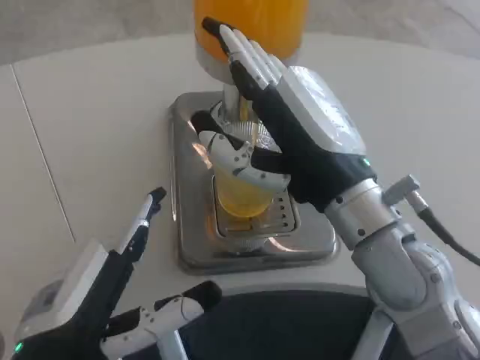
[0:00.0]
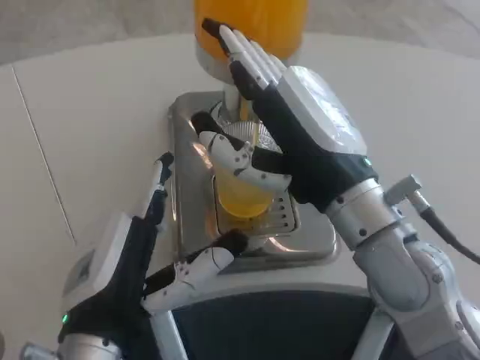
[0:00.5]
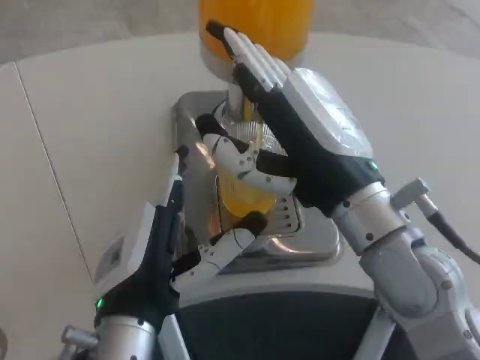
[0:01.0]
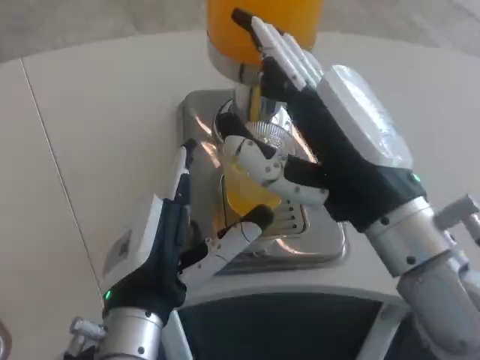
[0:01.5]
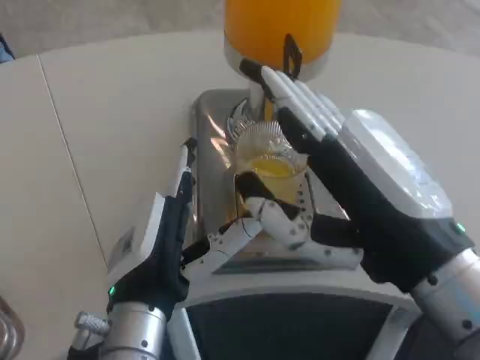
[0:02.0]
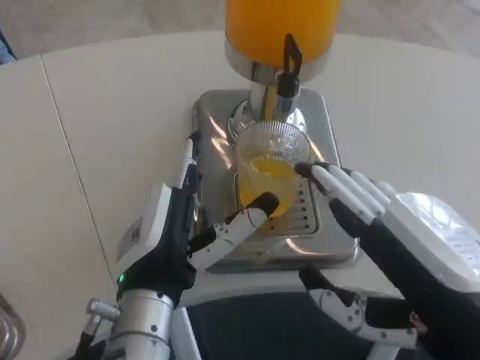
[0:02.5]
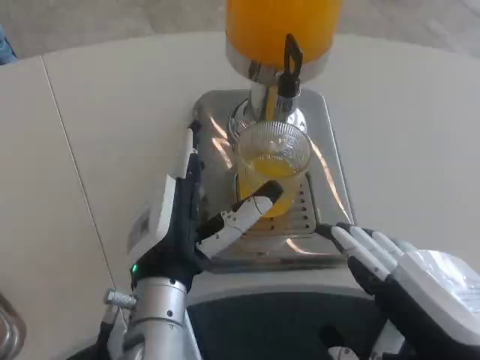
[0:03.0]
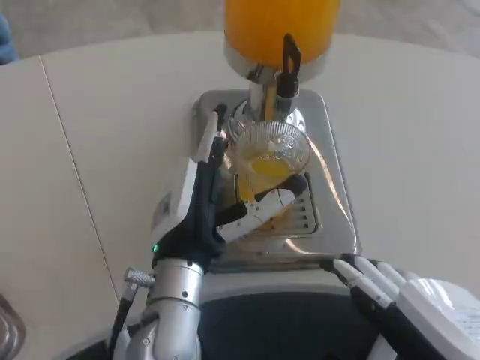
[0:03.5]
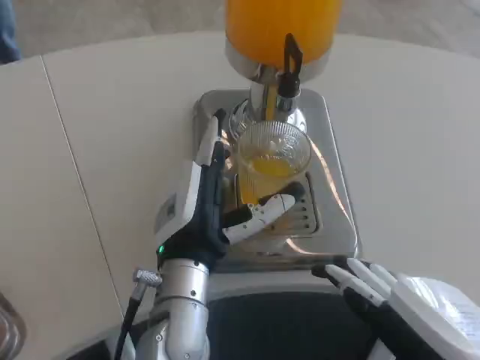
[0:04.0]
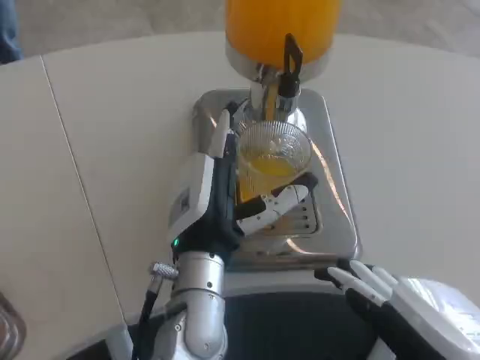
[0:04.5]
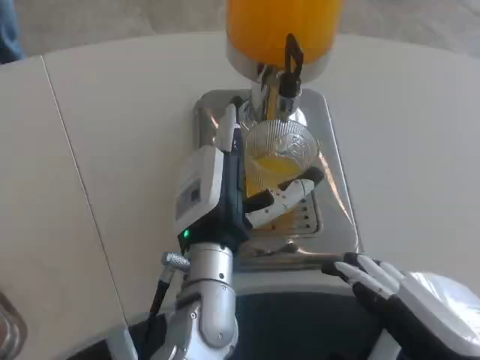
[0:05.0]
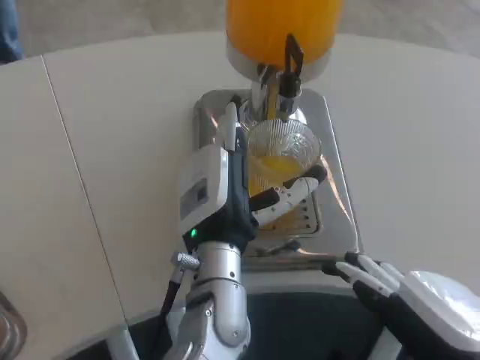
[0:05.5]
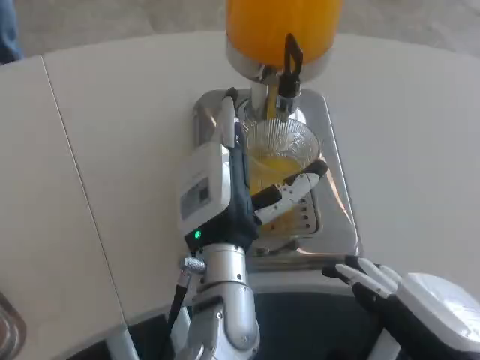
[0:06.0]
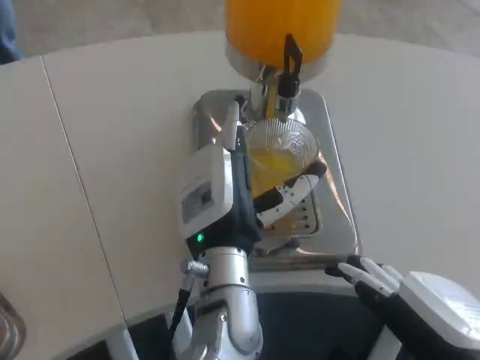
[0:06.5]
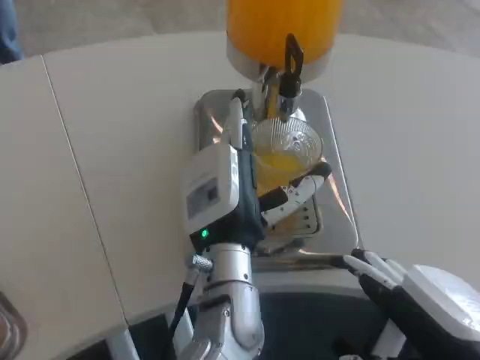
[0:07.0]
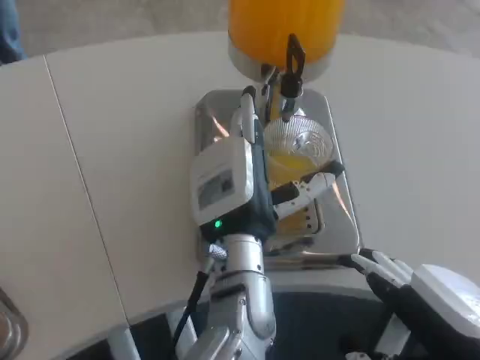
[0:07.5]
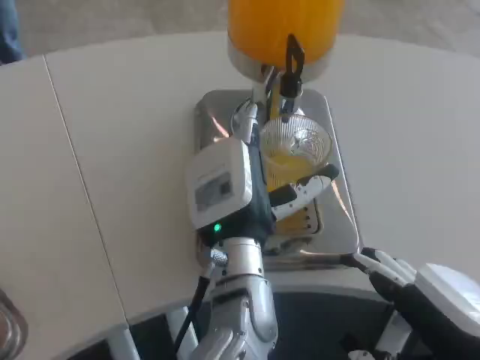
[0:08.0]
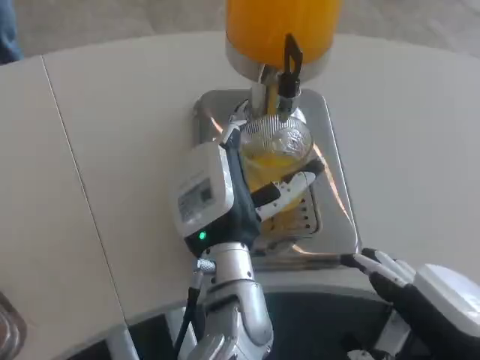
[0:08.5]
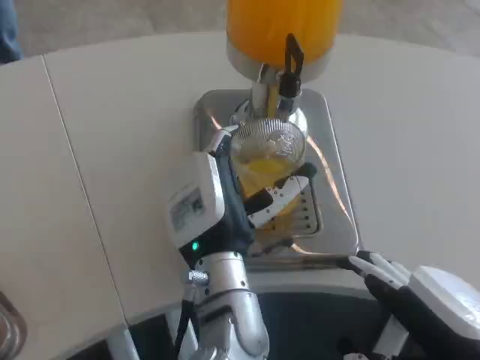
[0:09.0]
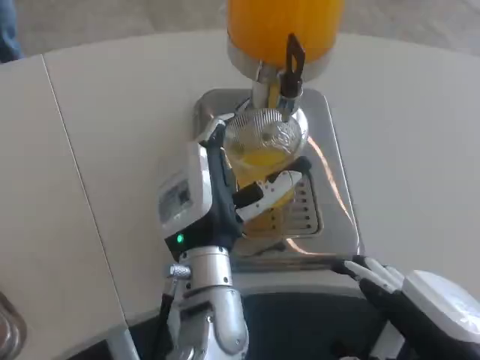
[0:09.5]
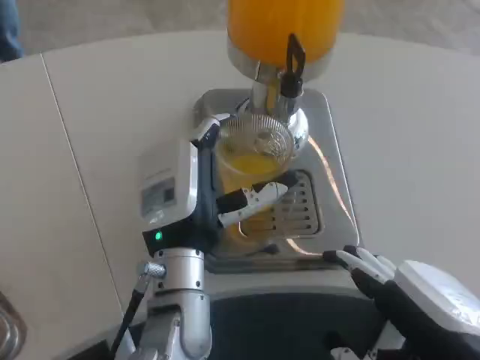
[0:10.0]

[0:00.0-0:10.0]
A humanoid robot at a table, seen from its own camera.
Task of the whole recording: Grasp the cup under the faucet to collect the drink, then remove the cup.
0:00.0 to 0:02.0: The right hand shifts approximately 10 cm backward. Meanwhile the left hand heads to the right and forward, covering approximately 10 cm.
0:02.0 to 0:04.0: The right hand heads backward, covering roughly 5 cm, while the left hand moves forward, about 5 cm.
0:04.0 to 0:06.0: The hands move only a little.
0:06.0 to 0:08.0: The hands stay close to where they were, moving slightly.
0:08.0 to 0:10.0: The left hand travels to the left by approximately 5 cm.

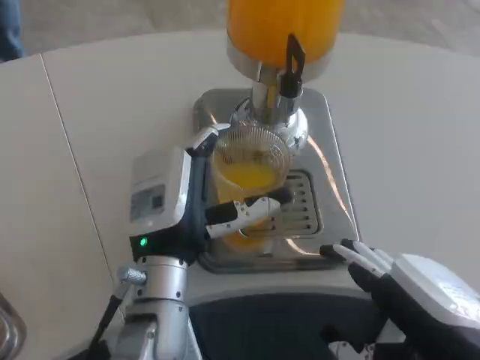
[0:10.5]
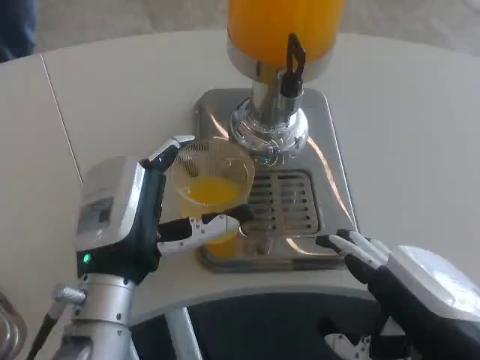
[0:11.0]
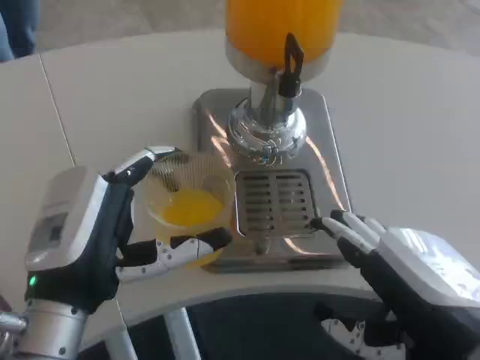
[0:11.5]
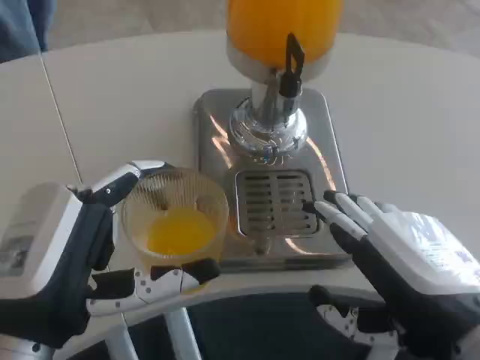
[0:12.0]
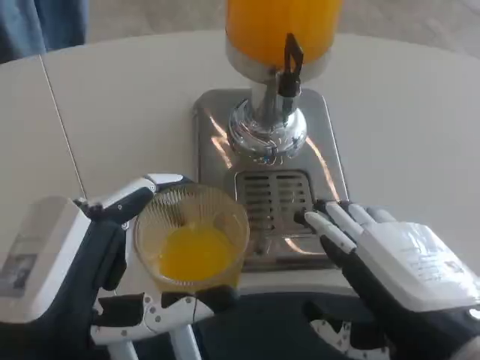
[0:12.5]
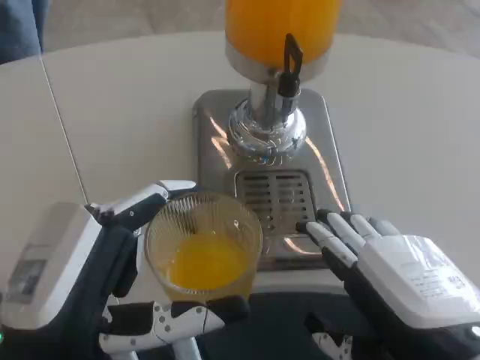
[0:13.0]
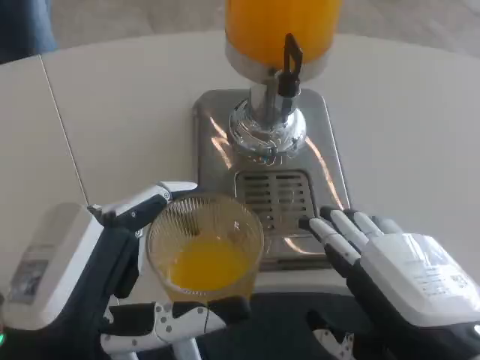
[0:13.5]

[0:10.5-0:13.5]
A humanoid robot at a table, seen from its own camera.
Task of the whole recording: Grasp the cup under the faucet to collect the drink, then remove the cup.
0:10.5 to 0:12.0: The left hand is displaced backward and to the left by some 15 cm.

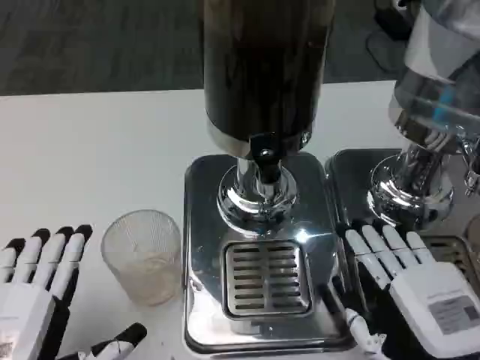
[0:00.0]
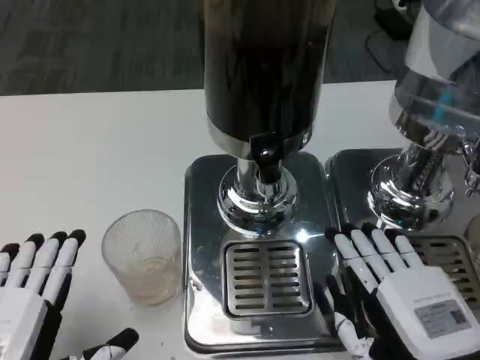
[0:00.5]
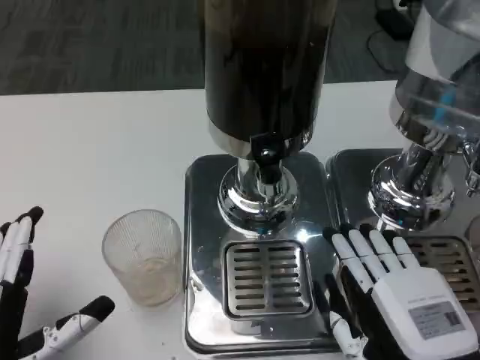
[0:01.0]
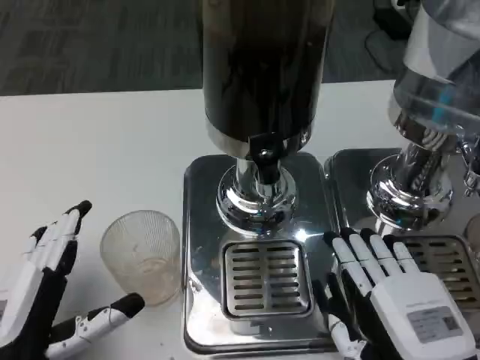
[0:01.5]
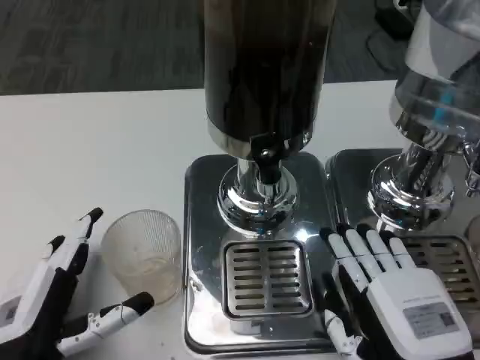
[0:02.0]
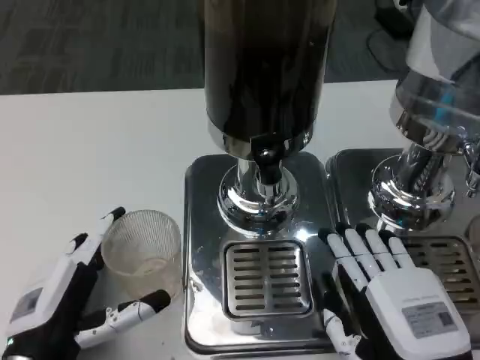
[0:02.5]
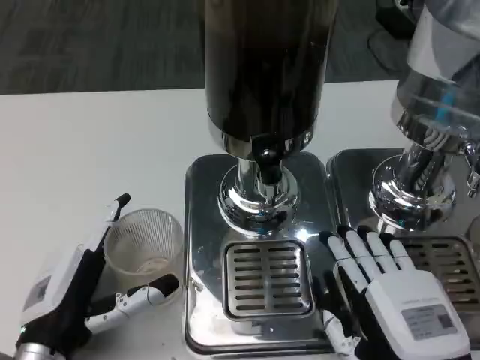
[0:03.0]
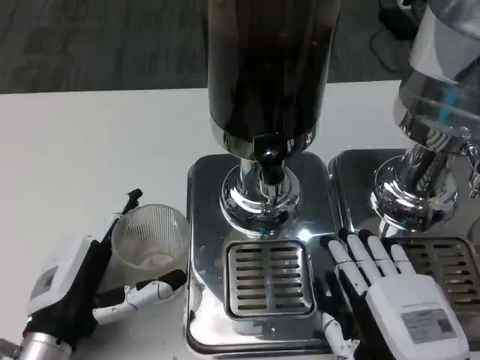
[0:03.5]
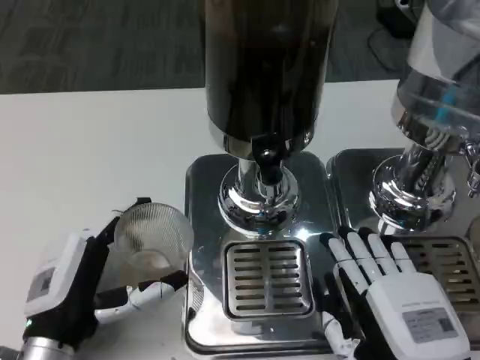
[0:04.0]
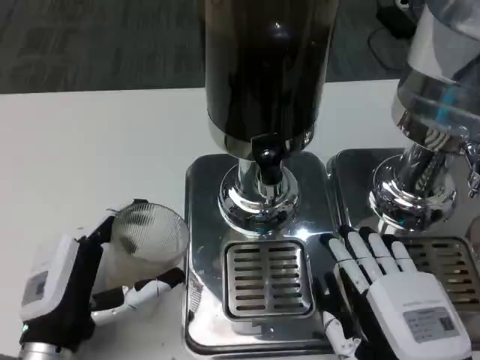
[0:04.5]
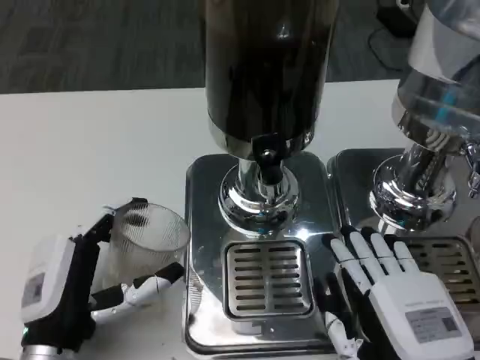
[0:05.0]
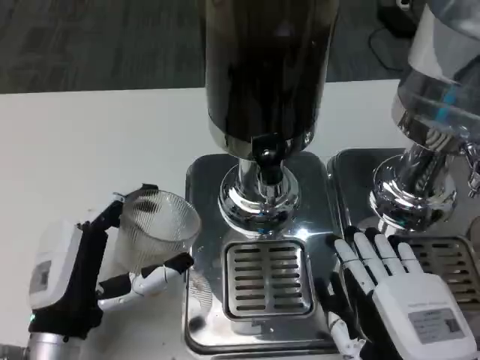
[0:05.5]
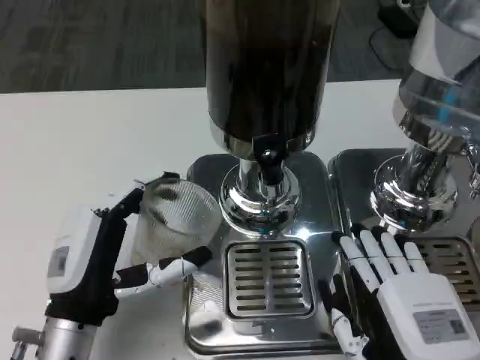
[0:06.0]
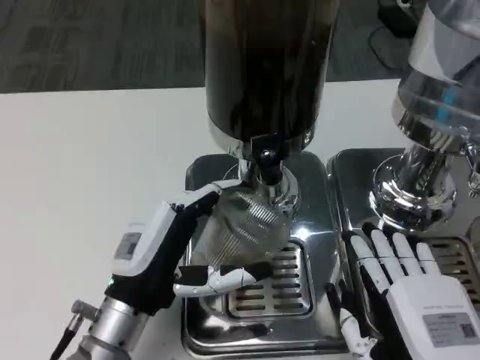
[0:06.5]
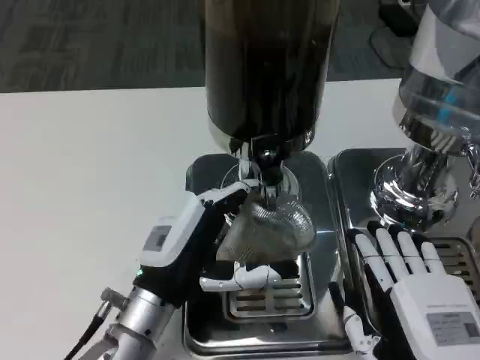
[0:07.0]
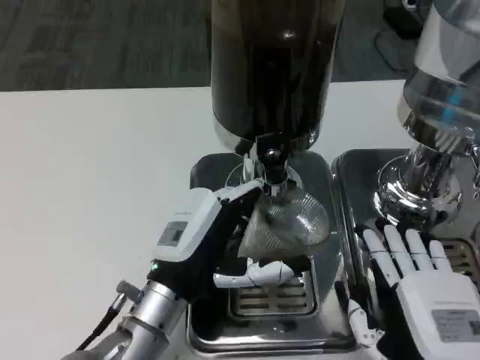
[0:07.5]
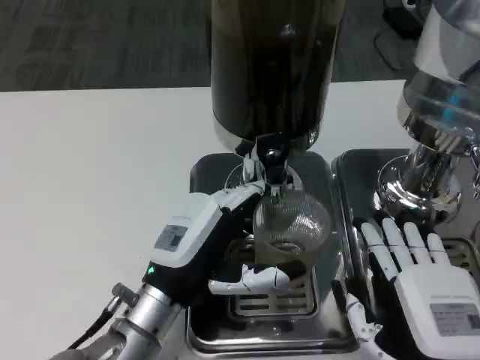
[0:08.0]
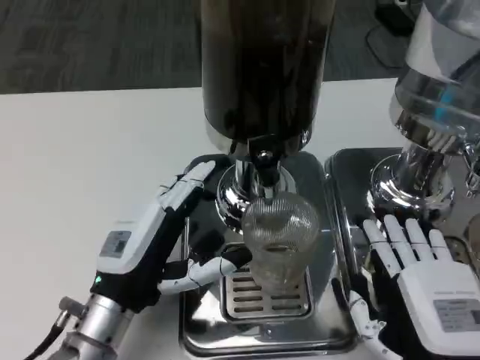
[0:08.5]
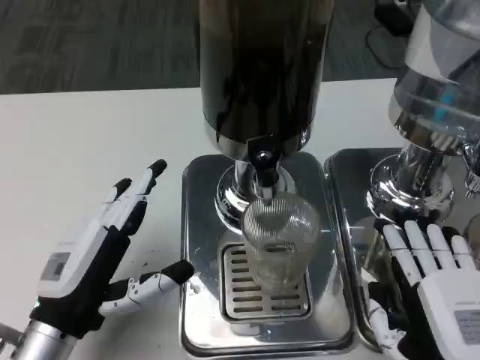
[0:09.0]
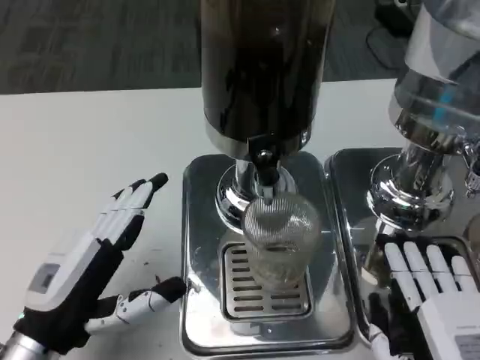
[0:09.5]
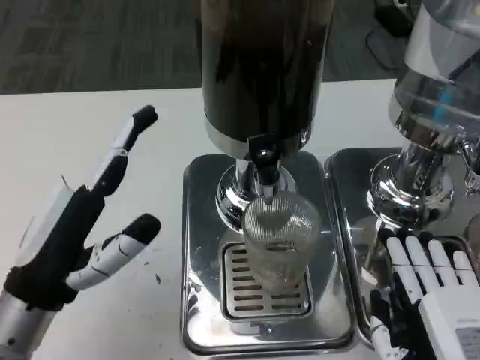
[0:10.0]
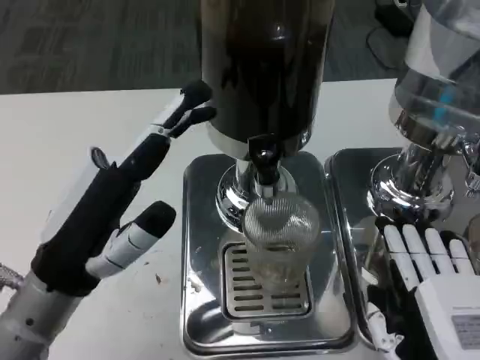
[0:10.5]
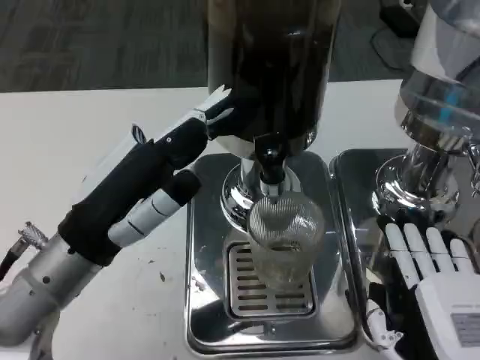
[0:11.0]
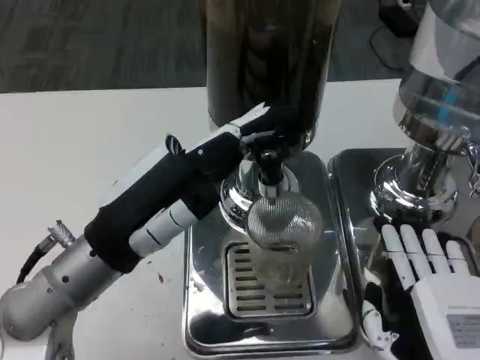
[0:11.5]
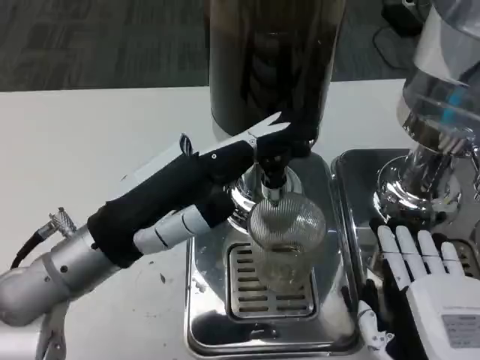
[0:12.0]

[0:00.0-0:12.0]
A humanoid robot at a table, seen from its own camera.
Task of the whole recording: Grasp the cup under the faucet to collect the drink, then remove the cup.
0:00.0 to 0:02.0: The left hand shifts about 5 cm forward and downward.
0:02.0 to 0:04.0: The hands make only small movements.
0:06.0 to 0:08.0: The left hand goes roughly 5 cm to the right.
0:08.0 to 0:10.0: The left hand travels to the left and upward by roughly 10 cm.
0:10.0 to 0:12.0: The left hand travels forward by some 5 cm.
